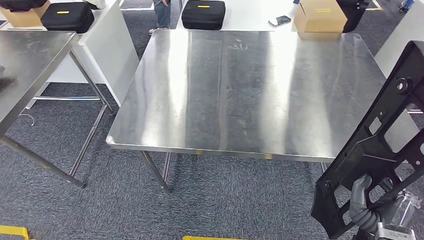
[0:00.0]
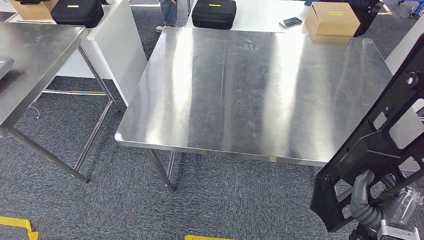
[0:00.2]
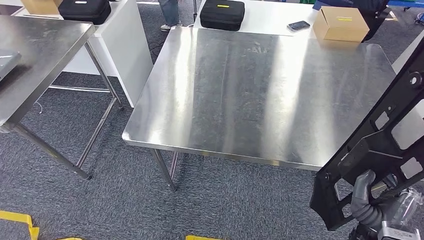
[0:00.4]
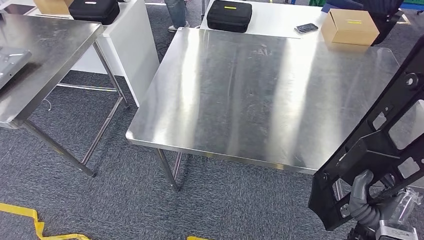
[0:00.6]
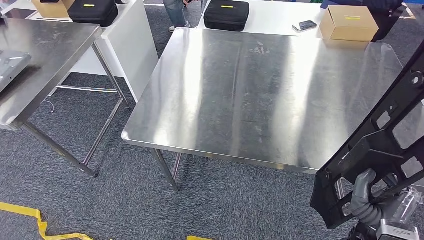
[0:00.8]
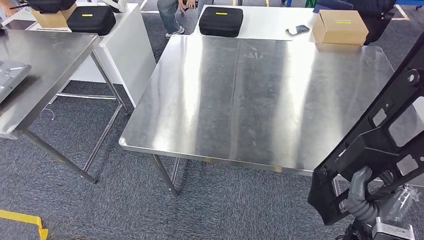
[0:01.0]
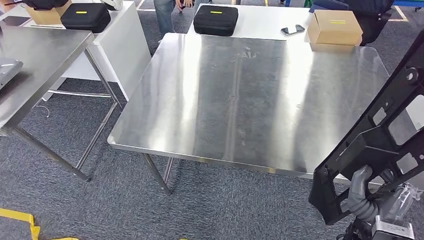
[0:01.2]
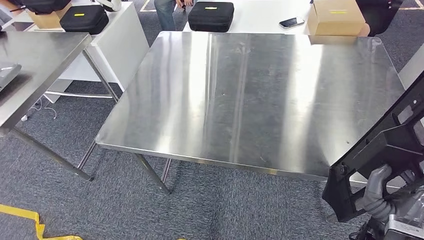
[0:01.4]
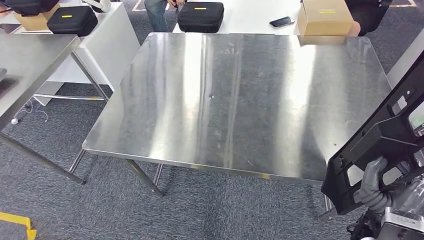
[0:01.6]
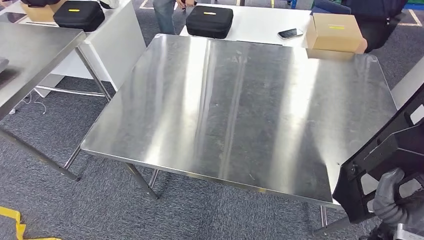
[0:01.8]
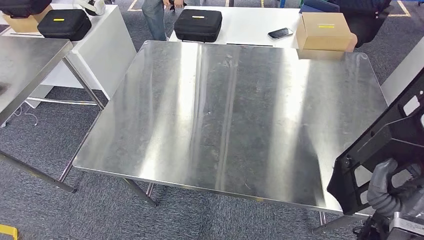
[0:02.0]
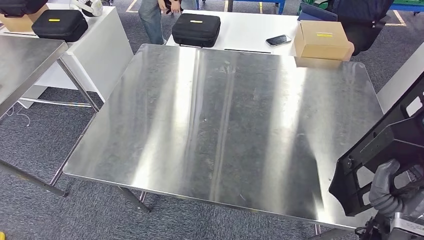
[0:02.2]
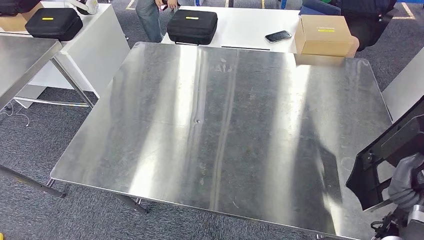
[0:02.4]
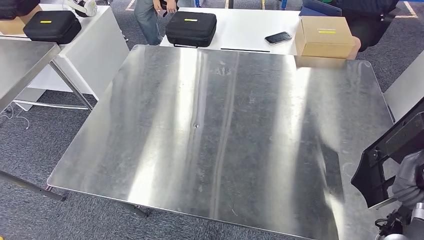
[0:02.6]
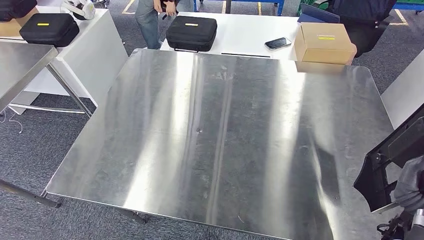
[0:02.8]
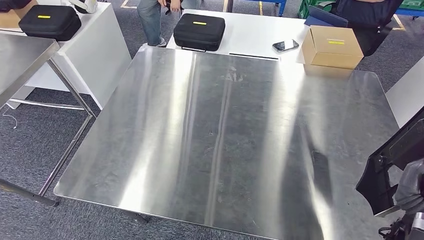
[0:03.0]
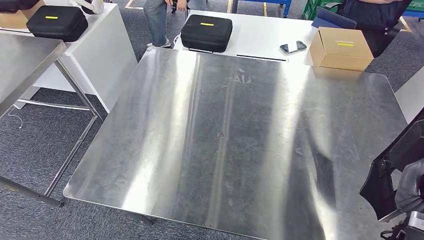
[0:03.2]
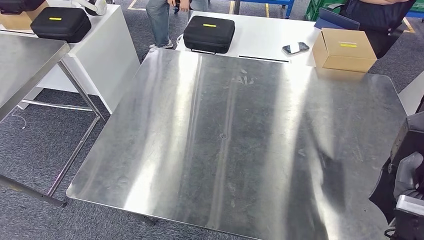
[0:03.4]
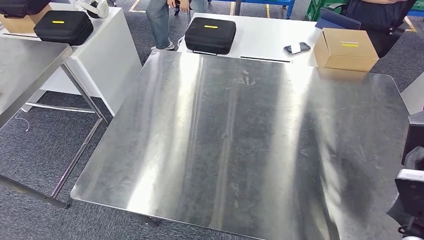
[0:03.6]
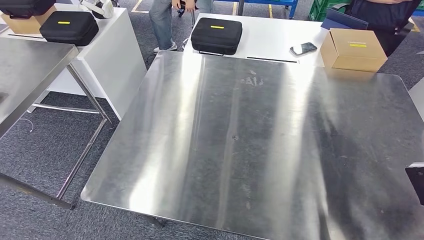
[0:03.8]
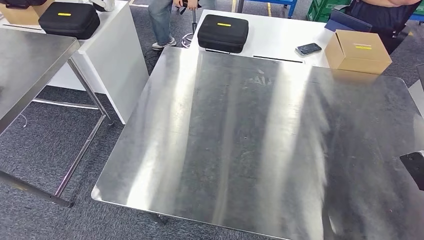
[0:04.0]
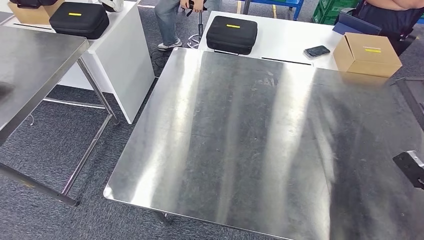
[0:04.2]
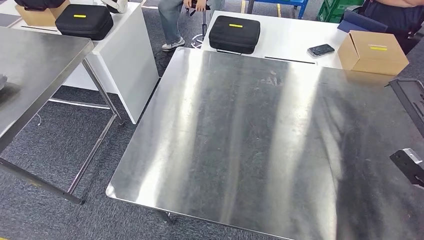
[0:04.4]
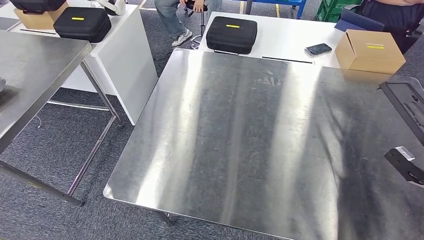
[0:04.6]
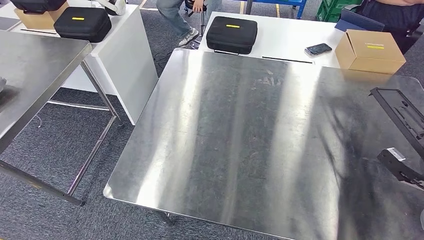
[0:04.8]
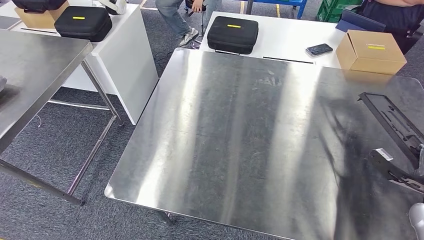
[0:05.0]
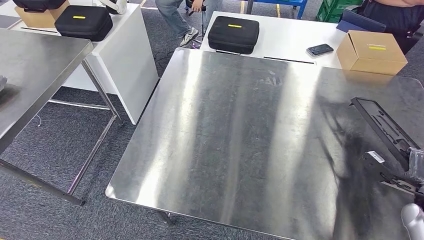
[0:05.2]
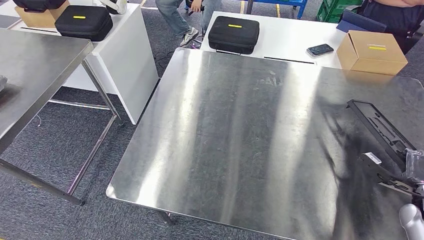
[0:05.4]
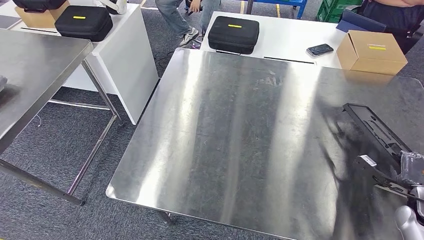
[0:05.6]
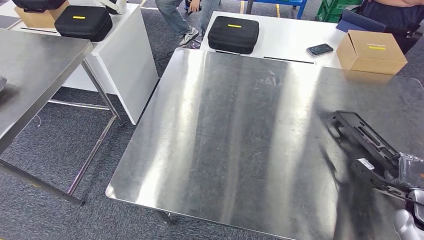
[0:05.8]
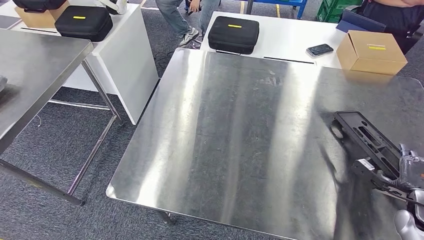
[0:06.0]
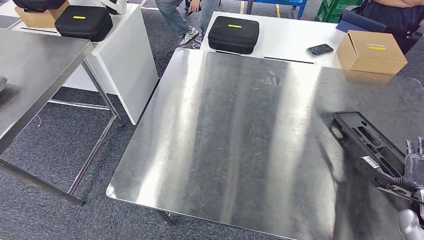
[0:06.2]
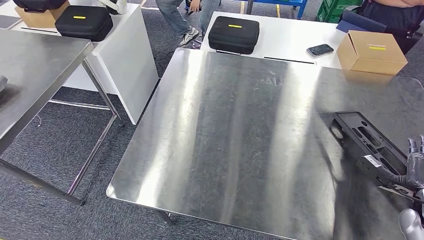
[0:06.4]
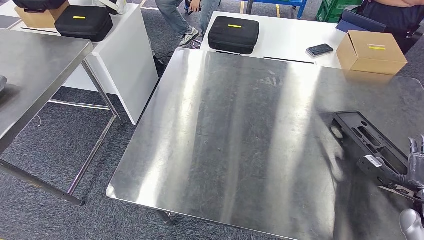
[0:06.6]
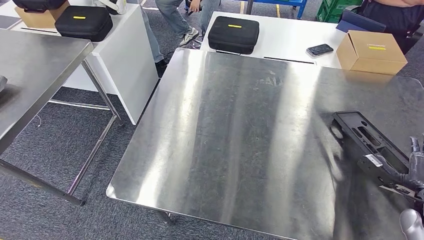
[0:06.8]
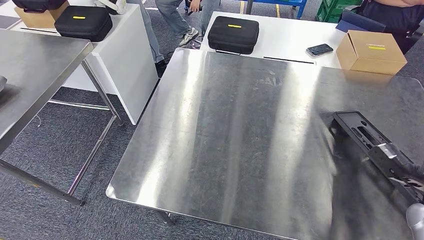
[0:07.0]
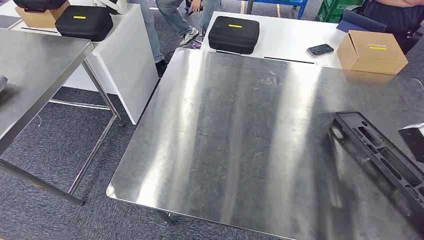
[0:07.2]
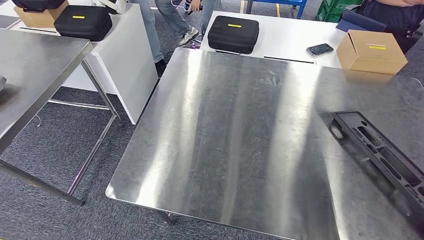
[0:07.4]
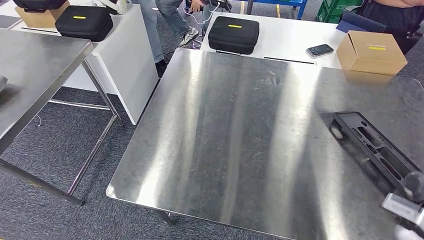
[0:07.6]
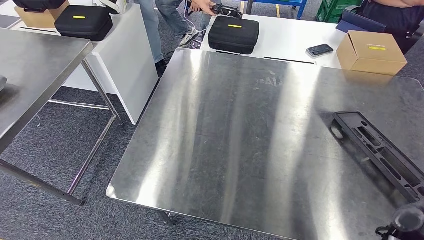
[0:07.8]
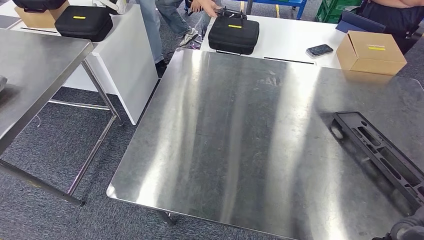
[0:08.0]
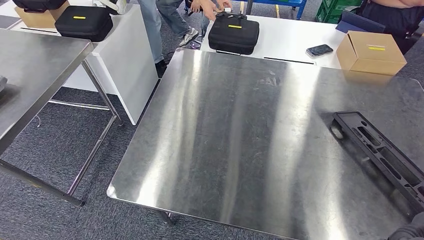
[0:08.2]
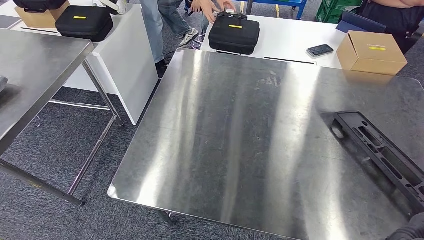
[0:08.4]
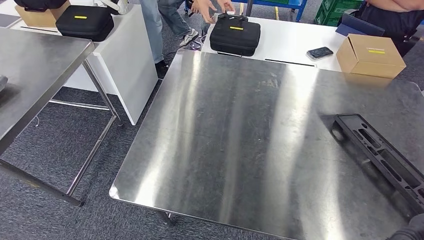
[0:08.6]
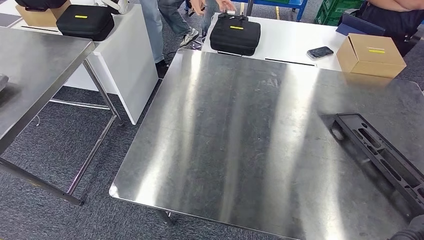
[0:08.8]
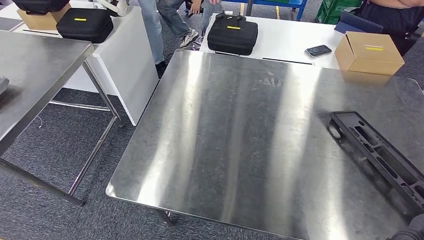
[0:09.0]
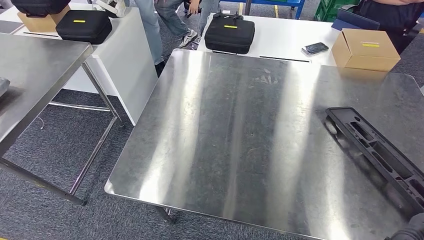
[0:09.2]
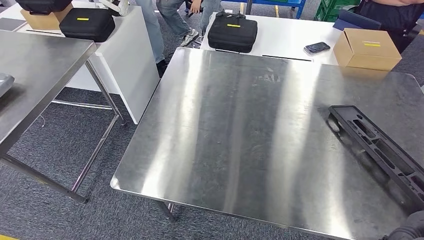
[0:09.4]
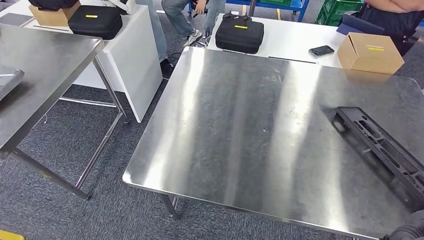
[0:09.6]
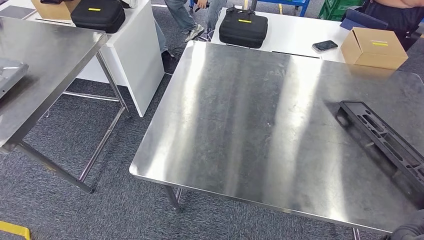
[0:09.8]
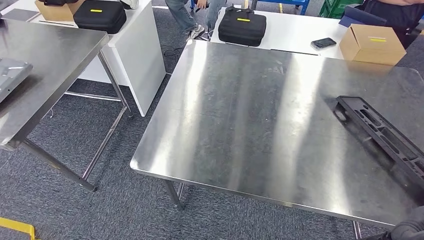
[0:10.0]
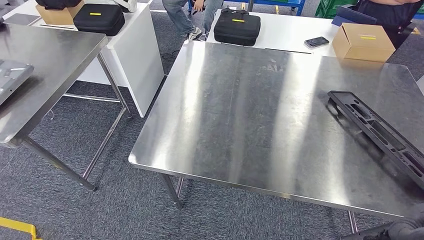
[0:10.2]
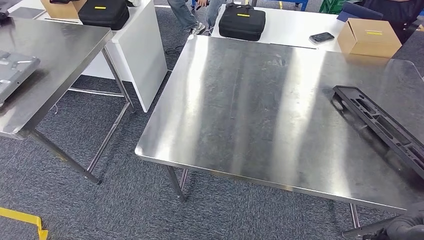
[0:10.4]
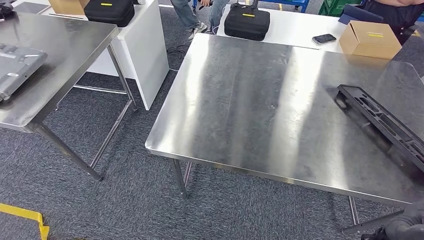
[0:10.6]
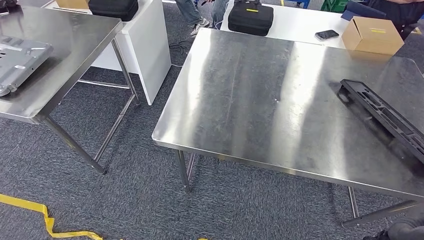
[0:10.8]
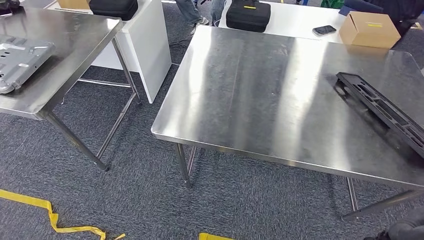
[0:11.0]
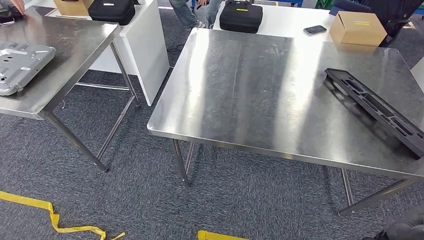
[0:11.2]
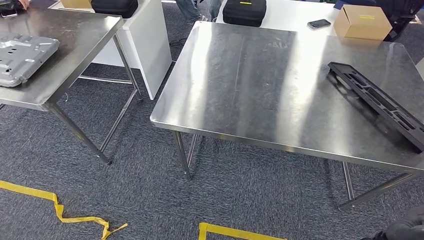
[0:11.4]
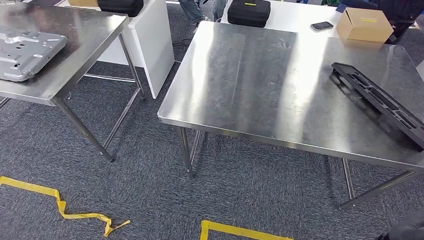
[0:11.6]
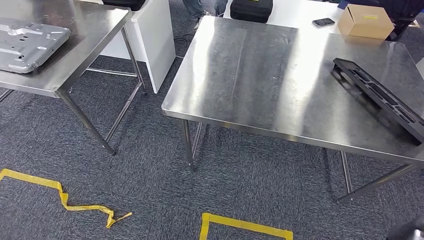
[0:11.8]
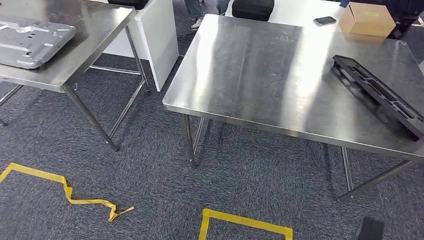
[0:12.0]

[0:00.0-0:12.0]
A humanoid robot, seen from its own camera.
Step, 0:00.0 to 0:10.8: Insert the large material into the corresponding hole on the workbench.
0:04.4 to 0:06.0: The right hand is displaced downward by roughly 5 cm.
0:06.0 to 0:07.6: The right hand shifts about 20 cm upward, to the left and backward.
0:07.6 to 0:09.0: The right hand travels to the left and backward by about 10 cm.

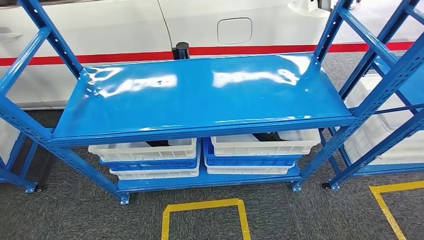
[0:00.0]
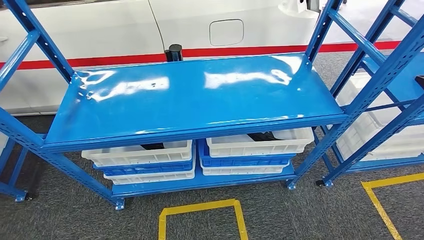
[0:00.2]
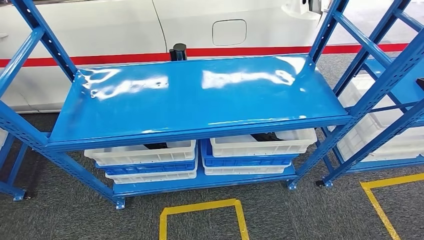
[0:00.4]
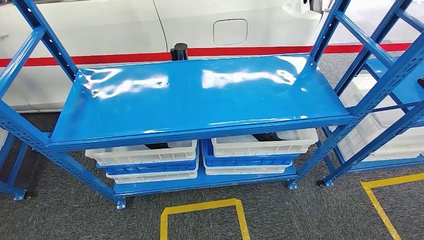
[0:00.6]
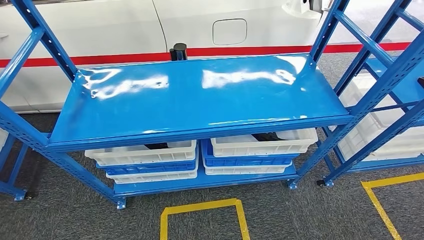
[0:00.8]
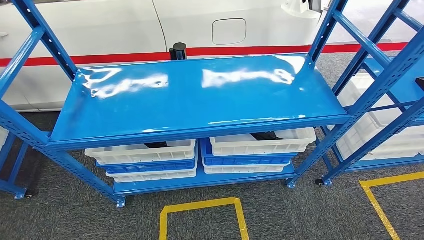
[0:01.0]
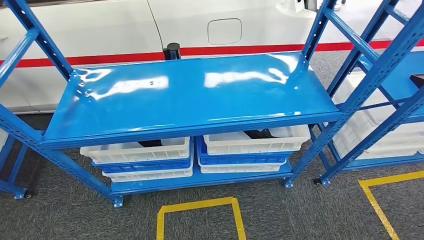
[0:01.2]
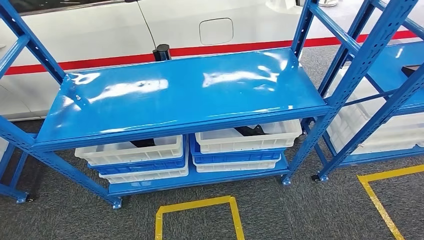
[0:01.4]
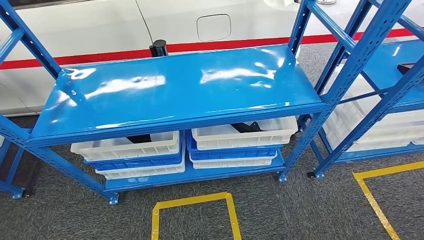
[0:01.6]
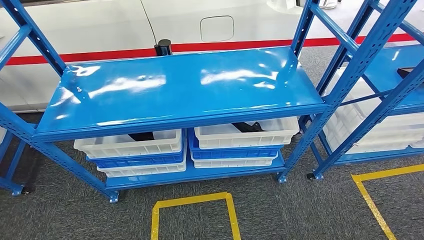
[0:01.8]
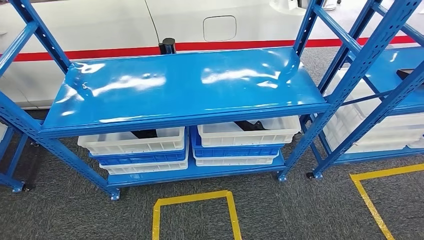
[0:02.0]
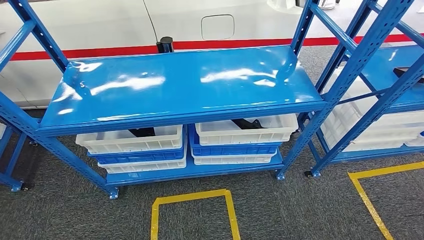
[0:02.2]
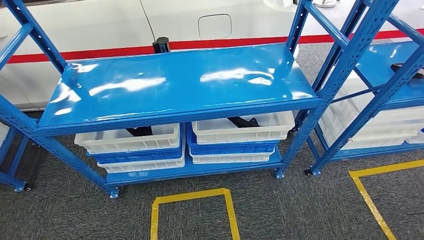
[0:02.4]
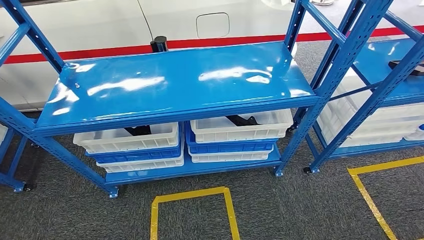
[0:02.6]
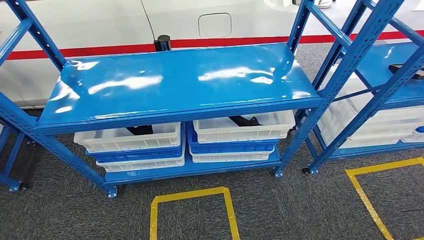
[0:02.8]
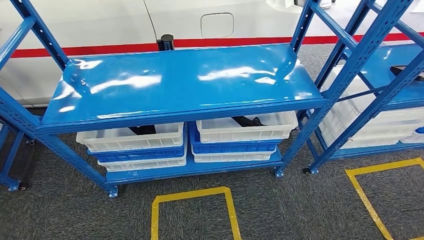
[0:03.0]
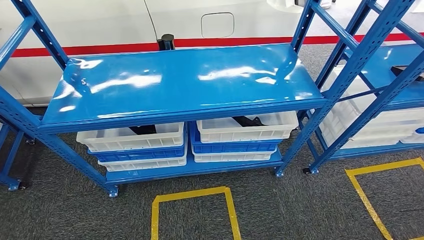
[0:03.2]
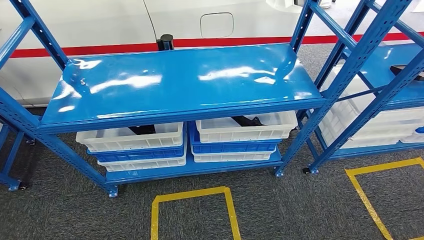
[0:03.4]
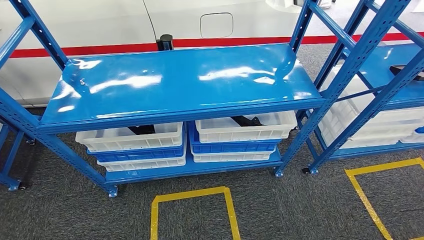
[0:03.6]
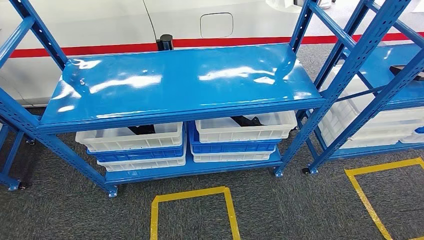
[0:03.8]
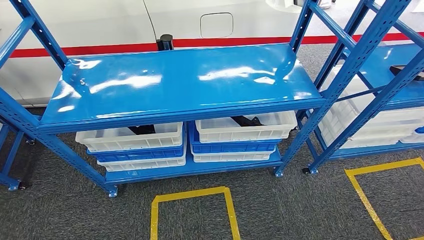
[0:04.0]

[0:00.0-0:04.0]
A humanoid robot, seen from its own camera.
Step, 0:00.0 to 0:04.0: Move to the initial position of the shelf.
